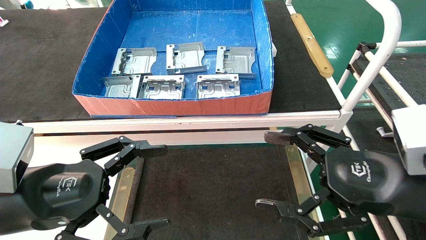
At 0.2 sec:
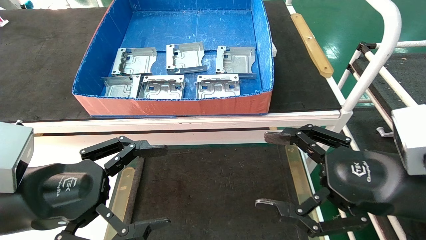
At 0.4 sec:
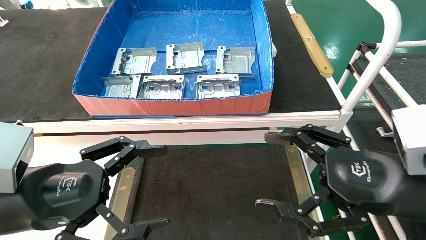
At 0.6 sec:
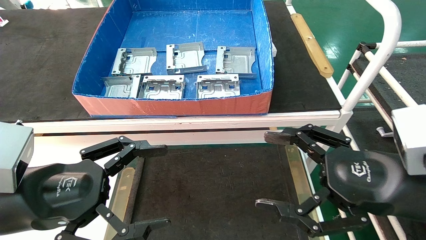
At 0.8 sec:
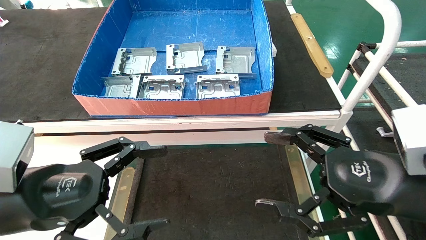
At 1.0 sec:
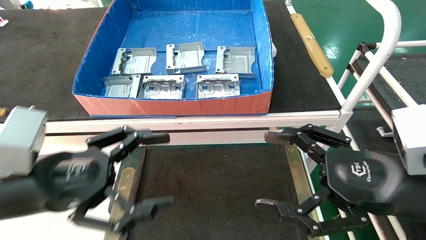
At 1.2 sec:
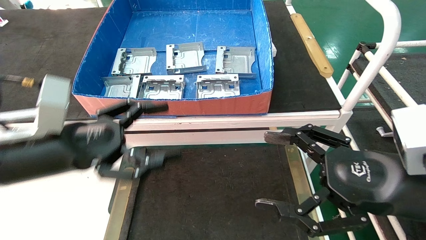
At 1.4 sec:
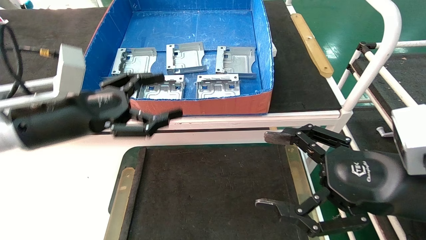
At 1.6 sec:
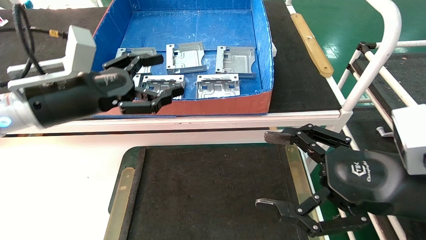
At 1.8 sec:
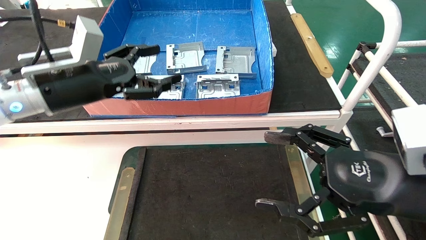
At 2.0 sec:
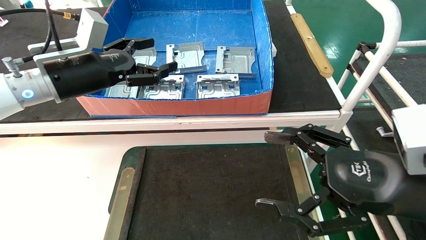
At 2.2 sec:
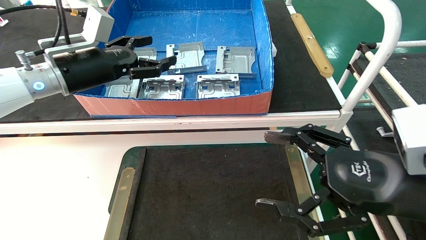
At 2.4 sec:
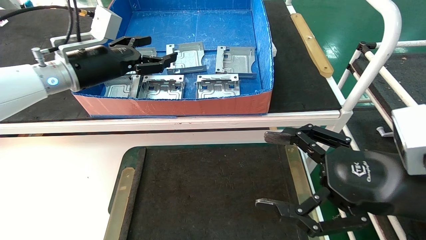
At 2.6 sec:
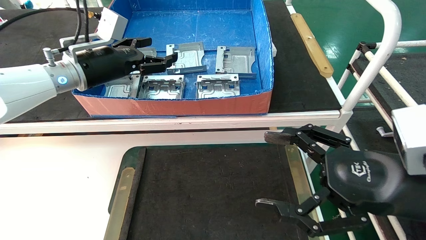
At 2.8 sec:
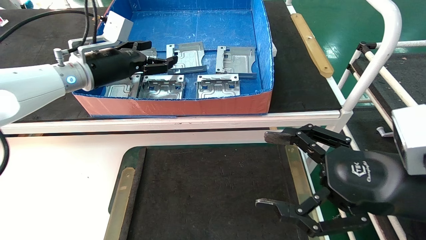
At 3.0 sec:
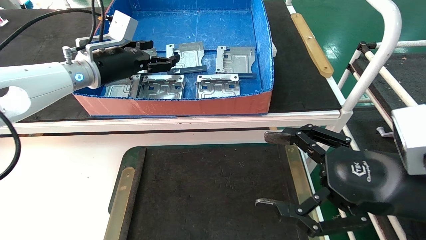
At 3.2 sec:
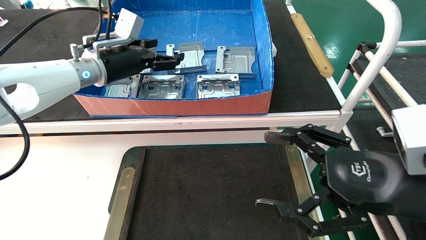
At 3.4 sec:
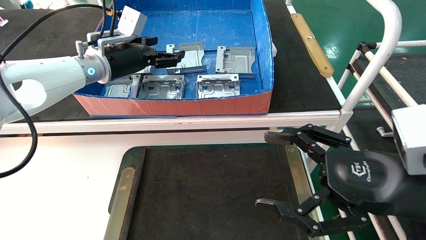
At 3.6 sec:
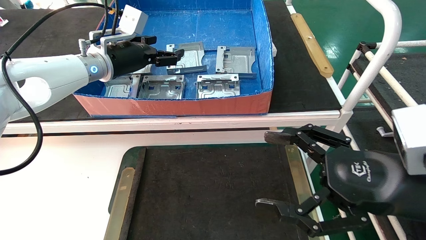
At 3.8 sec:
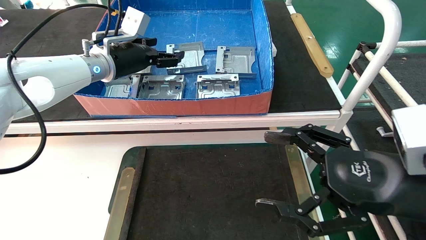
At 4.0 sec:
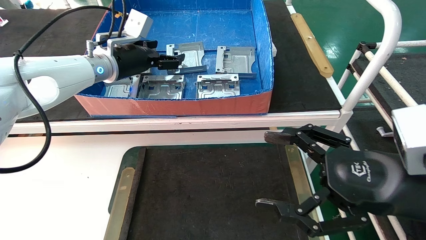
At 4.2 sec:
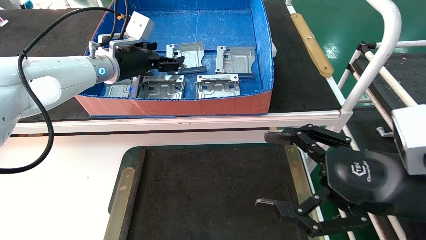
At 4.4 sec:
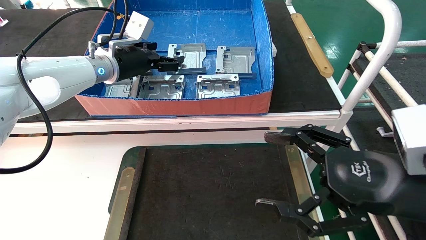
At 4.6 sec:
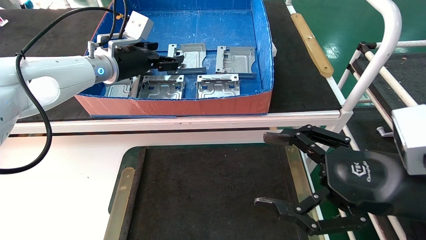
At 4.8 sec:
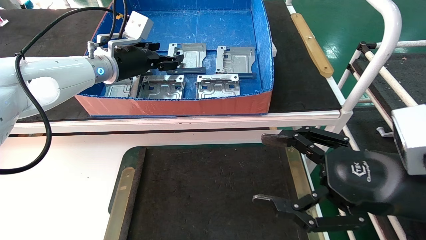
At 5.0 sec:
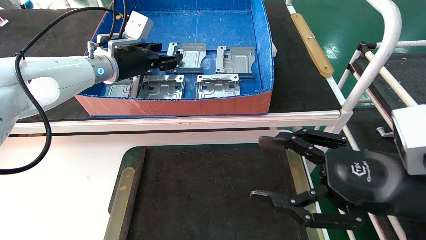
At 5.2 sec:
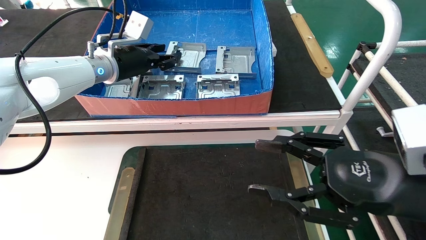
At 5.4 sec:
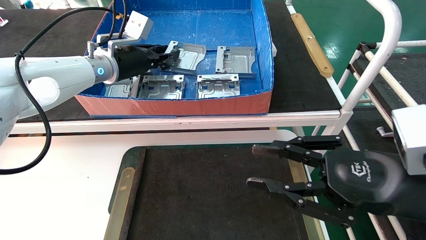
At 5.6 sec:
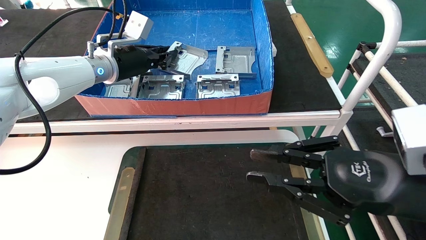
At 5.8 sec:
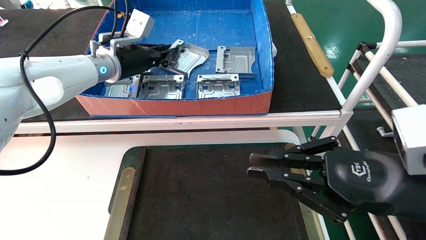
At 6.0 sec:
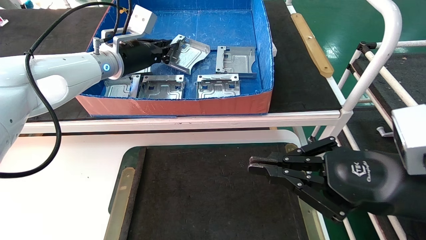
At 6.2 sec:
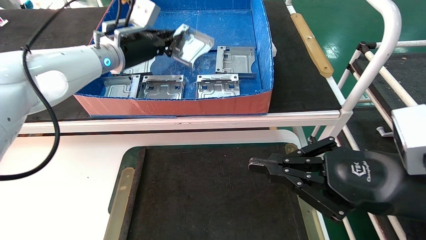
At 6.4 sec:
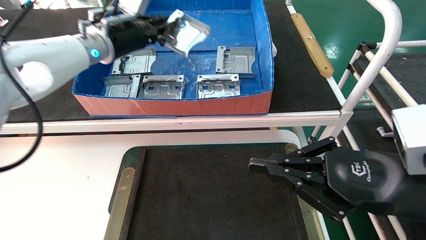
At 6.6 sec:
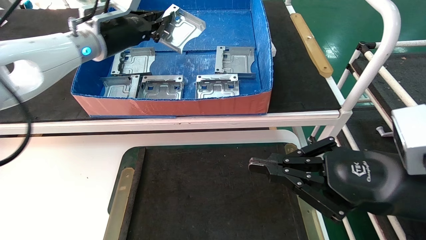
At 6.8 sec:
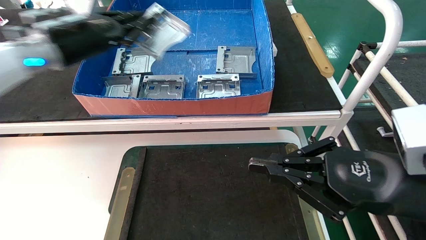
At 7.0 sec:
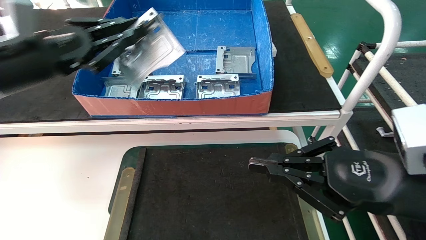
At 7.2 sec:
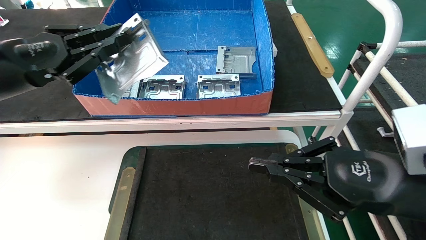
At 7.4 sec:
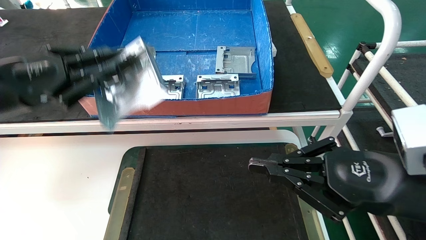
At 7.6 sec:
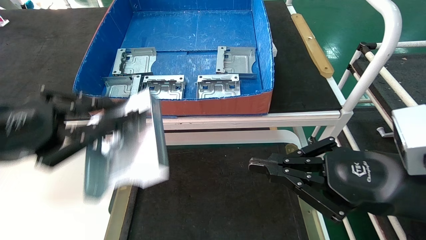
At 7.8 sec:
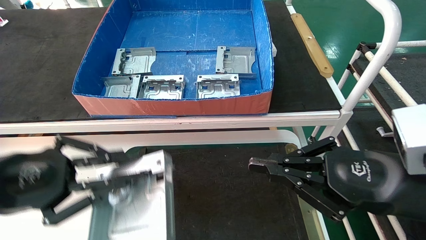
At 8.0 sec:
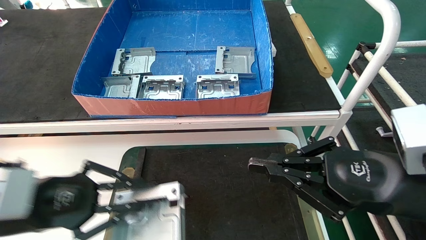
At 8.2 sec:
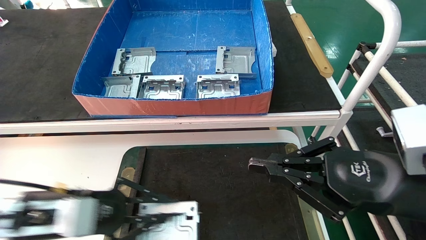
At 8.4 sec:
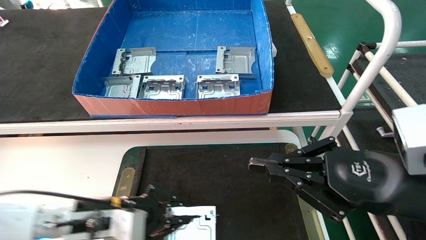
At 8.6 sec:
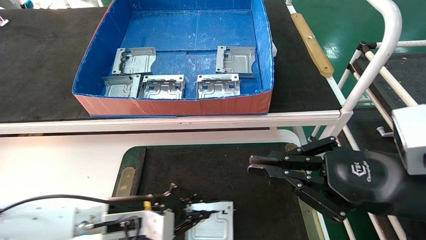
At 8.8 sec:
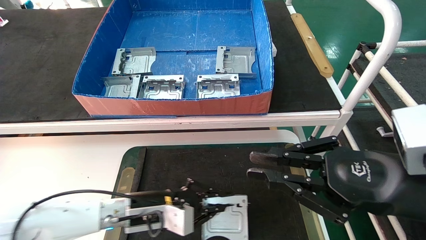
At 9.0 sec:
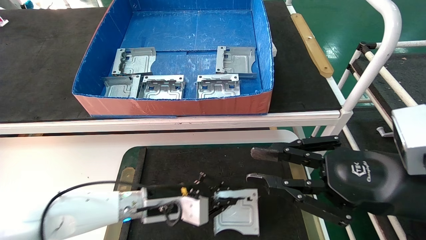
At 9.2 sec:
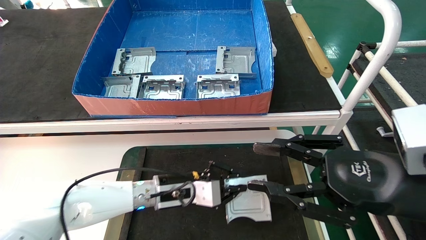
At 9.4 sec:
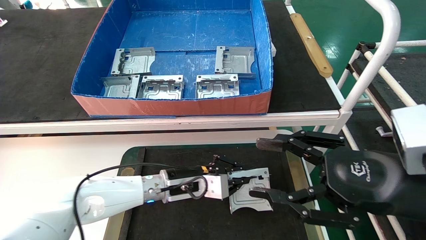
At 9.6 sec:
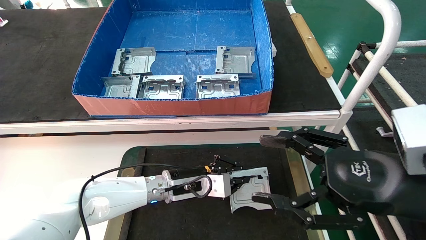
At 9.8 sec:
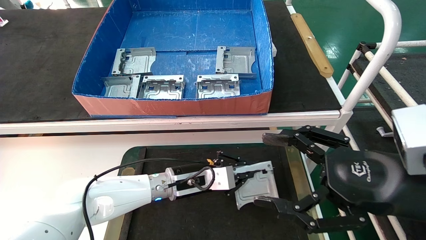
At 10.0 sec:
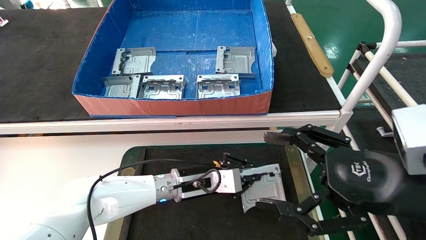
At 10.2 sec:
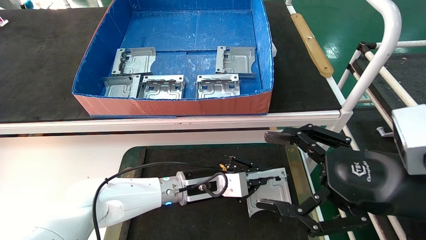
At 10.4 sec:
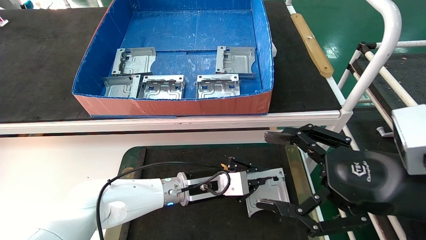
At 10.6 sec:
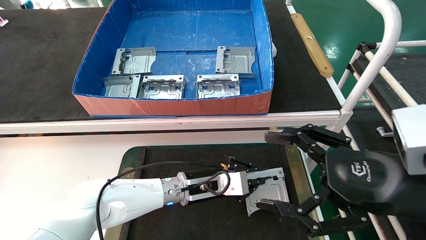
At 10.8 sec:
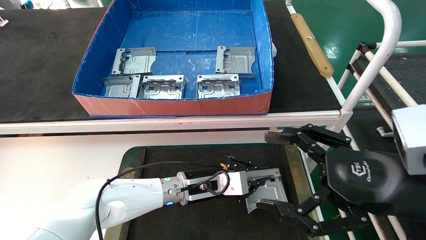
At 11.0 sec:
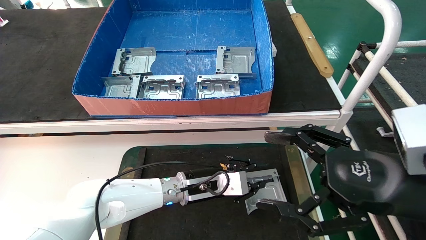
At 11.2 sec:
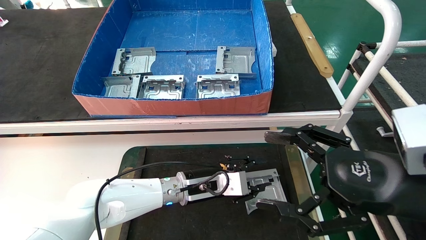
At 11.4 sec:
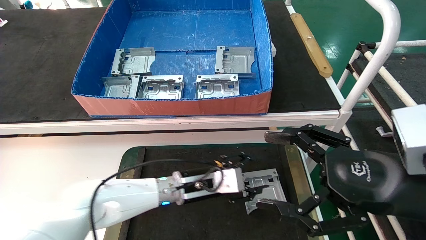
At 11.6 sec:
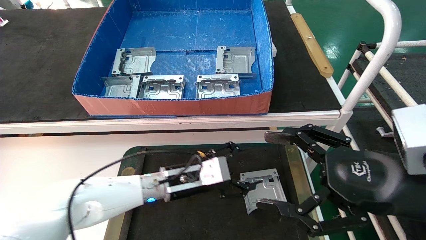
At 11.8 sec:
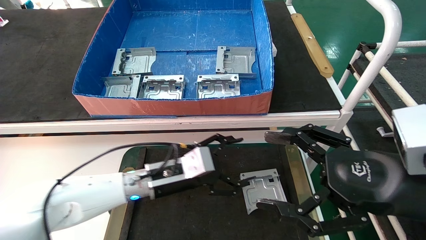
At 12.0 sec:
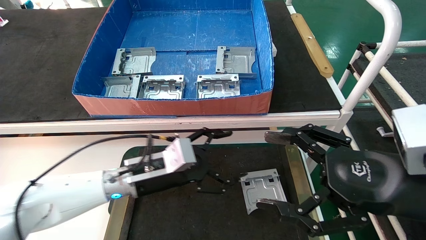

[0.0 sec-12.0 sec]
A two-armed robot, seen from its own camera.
Task of the whole recording: take the accessories out of the box and place them on the table.
Step, 1.2 sec to 6.0 sec: Pick up the hard drive bracket from the feeding area.
Step, 6.2 sec to 11.0 sec: Place the hard drive bracket into the box.
0.0 sec to 1.6 sec: The left gripper goes some 15 cm forward and upward.
1.6 sec to 3.0 sec: The left gripper shifts about 15 cm forward.
3.0 sec to 4.4 sec: The grippers move only a little.
4.4 sec to 6.0 sec: The right gripper closes up. Meanwhile the left gripper closes its fingers.
6.0 sec to 7.6 sec: The left gripper heads backward and to the left, covering some 25 cm.
7.6 sec to 9.0 sec: The left gripper goes roughly 30 cm downward, to the right and forward.
9.0 sec to 10.4 sec: The left gripper is displaced to the right by approximately 10 cm, while the right gripper opens its fingers.
10.4 sec to 12.0 sec: The left gripper shifts about 10 cm to the left and upward, and opens.
